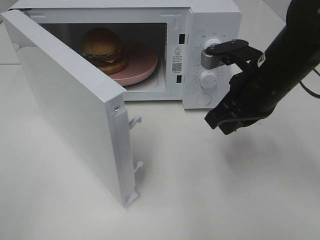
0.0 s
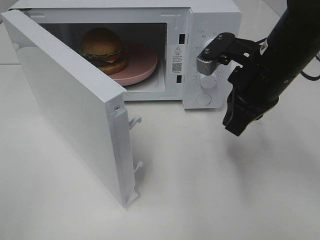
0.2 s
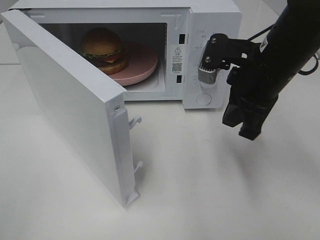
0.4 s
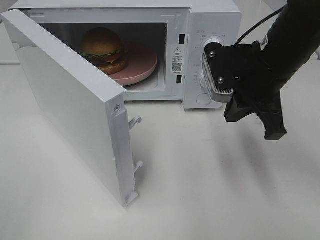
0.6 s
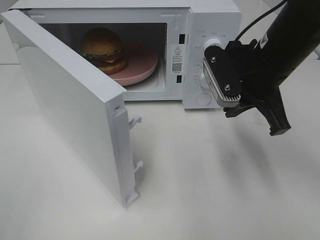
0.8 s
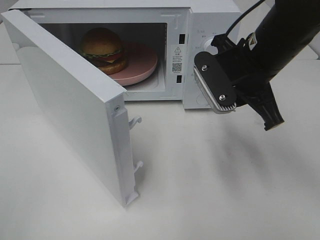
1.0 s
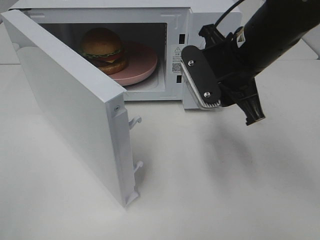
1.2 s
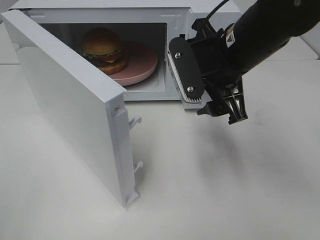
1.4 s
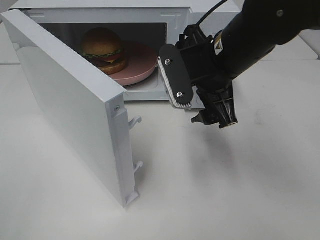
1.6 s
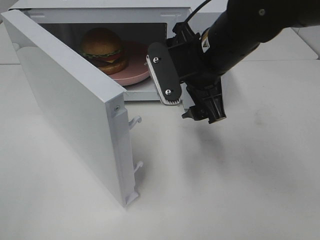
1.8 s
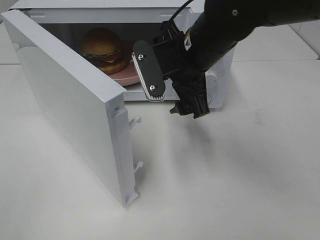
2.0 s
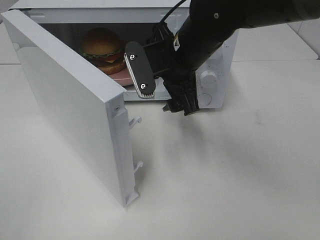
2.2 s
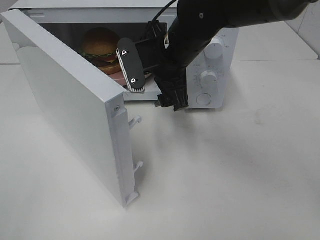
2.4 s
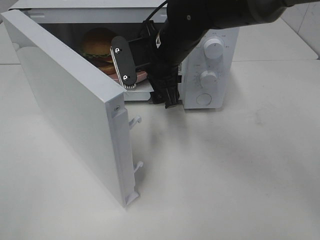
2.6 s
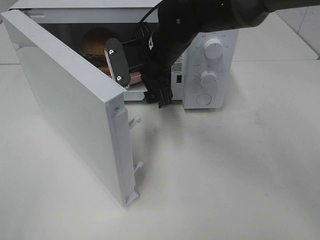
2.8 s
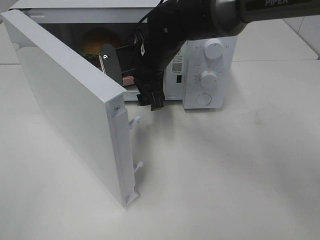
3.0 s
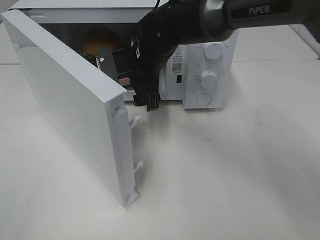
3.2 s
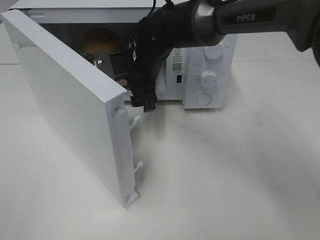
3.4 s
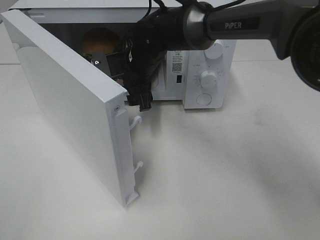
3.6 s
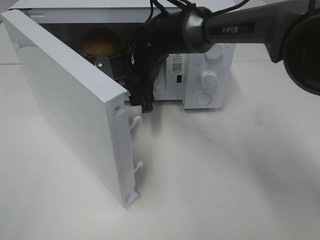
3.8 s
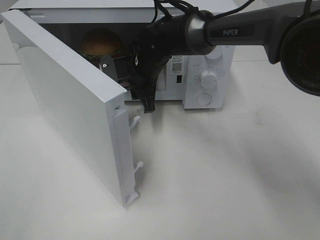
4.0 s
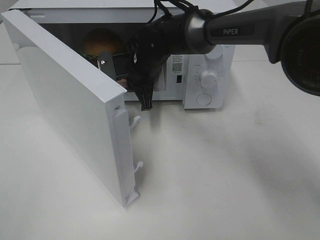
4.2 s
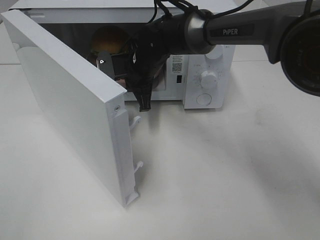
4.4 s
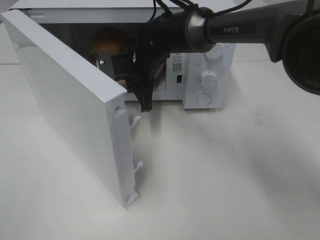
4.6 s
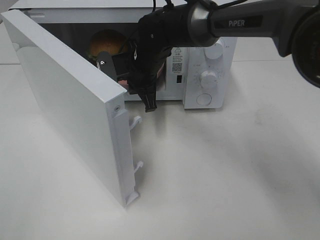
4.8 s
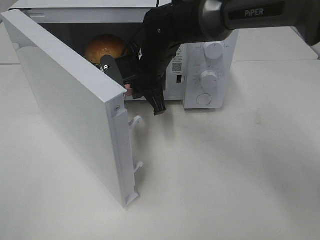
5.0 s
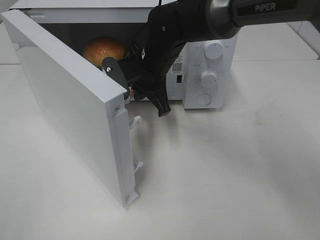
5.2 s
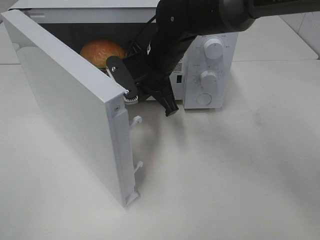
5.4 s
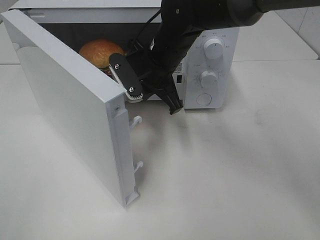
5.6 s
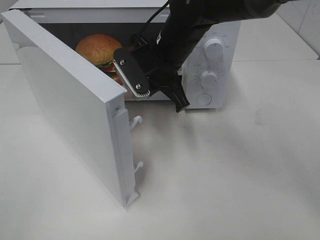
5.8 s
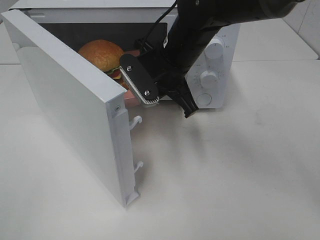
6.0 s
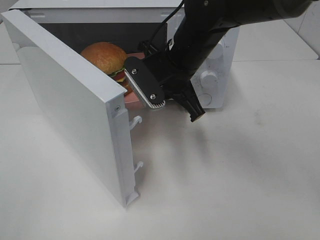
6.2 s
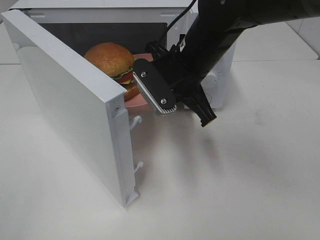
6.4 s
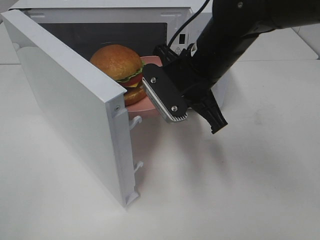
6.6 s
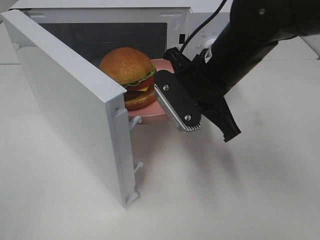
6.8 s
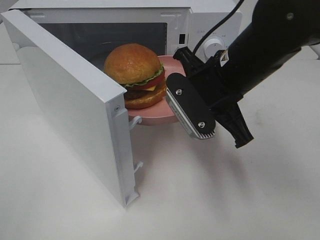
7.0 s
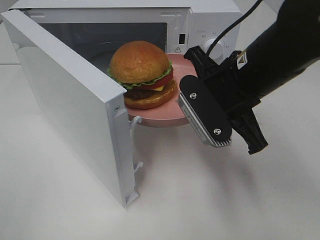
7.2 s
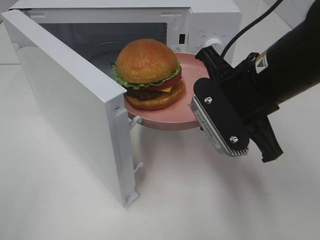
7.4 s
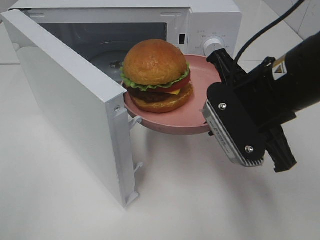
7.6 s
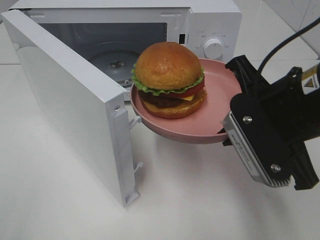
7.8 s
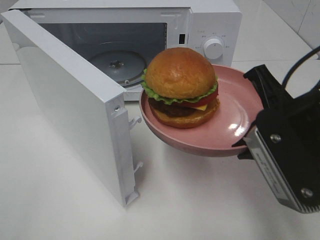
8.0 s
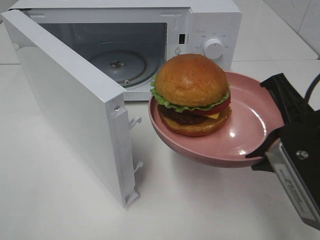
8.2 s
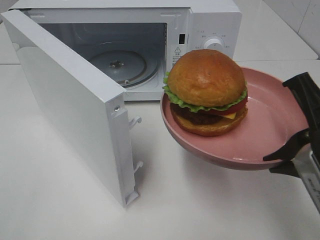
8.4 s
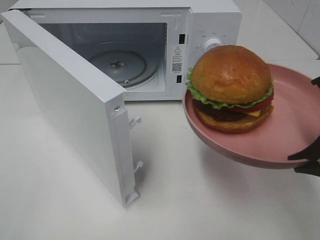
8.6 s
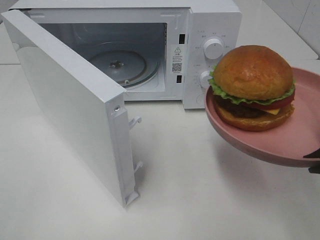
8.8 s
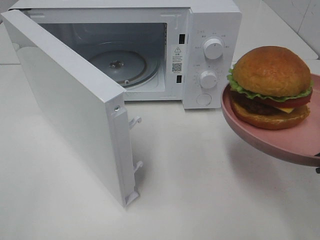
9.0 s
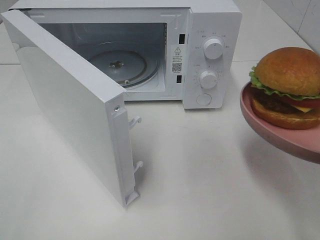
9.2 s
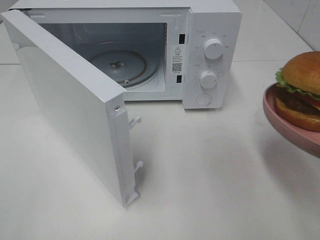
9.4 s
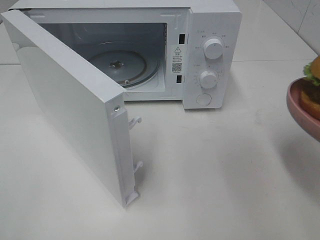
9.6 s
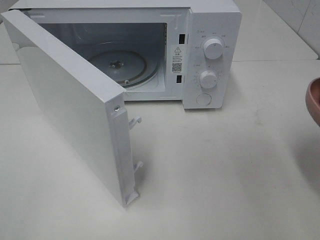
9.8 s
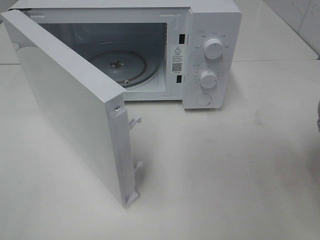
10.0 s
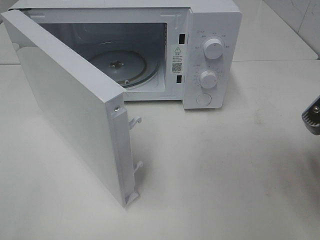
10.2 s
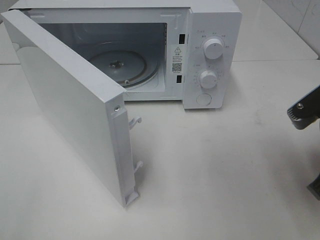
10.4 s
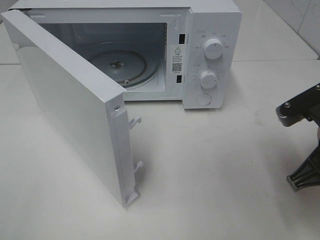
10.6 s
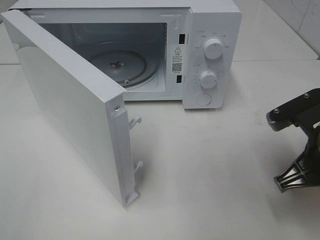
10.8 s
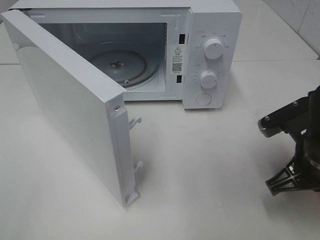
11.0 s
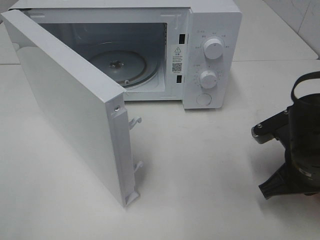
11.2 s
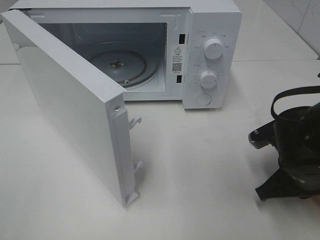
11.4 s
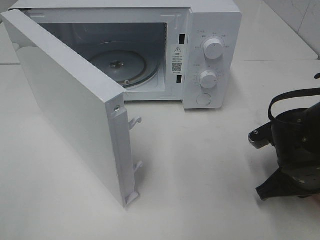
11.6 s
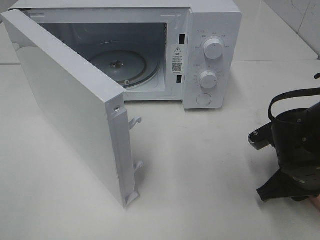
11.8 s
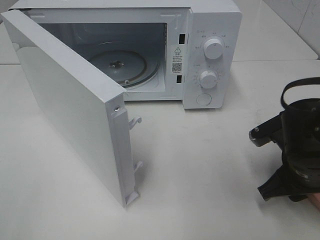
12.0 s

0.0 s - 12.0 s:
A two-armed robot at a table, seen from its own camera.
Task of the whole recording: Heat the burger.
Step, 0.0 s - 4.2 s: Right hand: grab the plate with the hamburger.
Step, 4.4 s - 11.8 s: Right hand: place the plate on the table.
0.0 s - 1.6 s: The right gripper shifts about 5 cm to the left, and opens up.
1.6 s - 3.0 s: The right gripper goes approximately 15 cm forward, to the left and downward.
3.0 s - 4.4 s: The right gripper moves about 5 cm, and closes.
4.4 s - 6.0 s: The right gripper heads backward, upward and to the right, covering roughly 10 cm.
6.0 s - 7.6 s: The right gripper moves backward and to the right, roughly 15 cm.
7.6 s - 9.0 s: The right gripper travels backward and to the right by roughly 15 cm.
9.0 s - 10.4 s: The right gripper shifts by approximately 5 cm.
10.4 s - 12.0 s: The right gripper is displaced downward by some 10 cm, and opens its fingers.

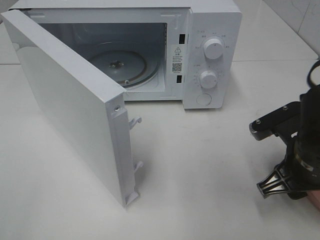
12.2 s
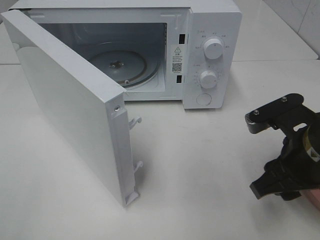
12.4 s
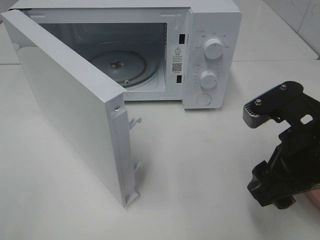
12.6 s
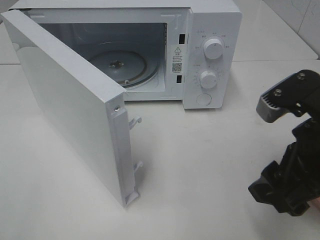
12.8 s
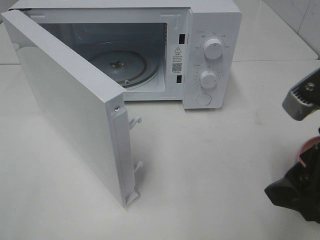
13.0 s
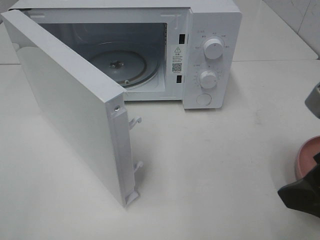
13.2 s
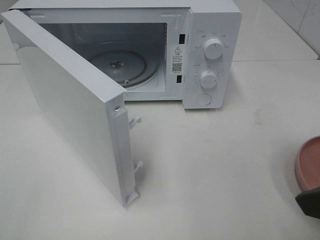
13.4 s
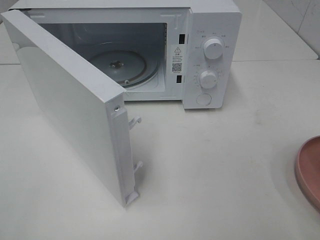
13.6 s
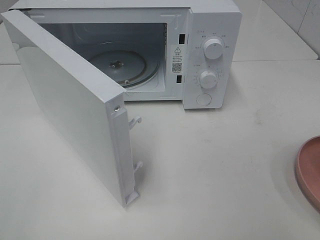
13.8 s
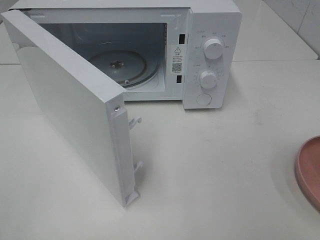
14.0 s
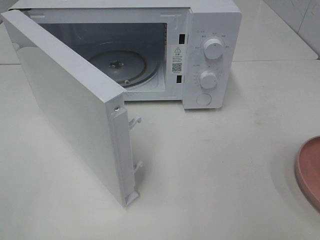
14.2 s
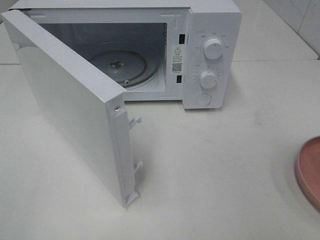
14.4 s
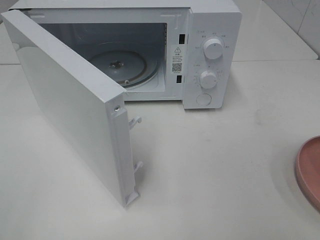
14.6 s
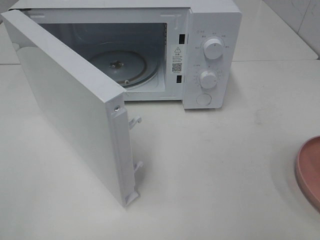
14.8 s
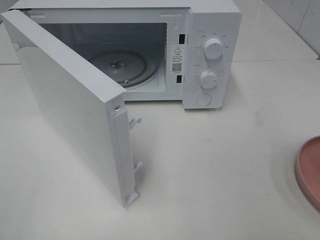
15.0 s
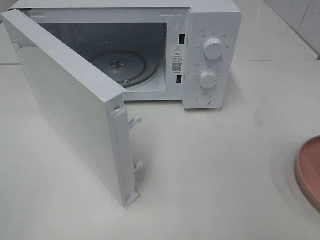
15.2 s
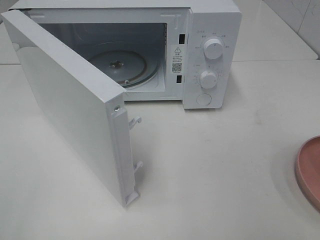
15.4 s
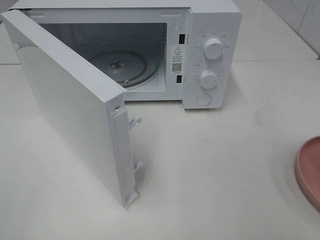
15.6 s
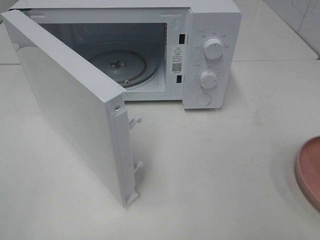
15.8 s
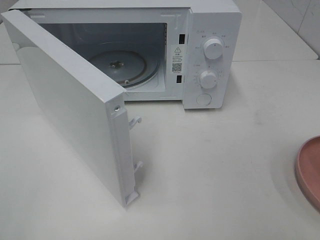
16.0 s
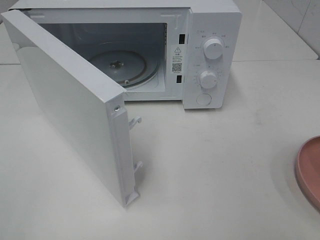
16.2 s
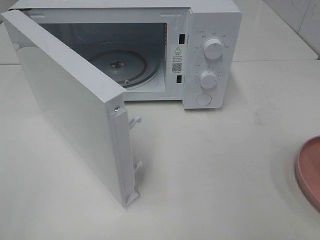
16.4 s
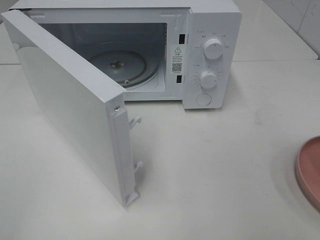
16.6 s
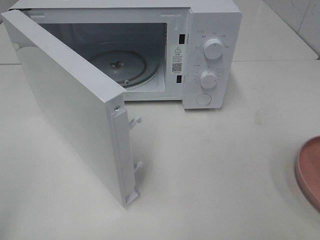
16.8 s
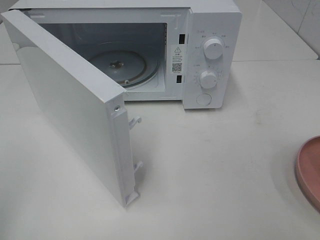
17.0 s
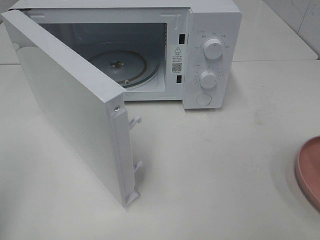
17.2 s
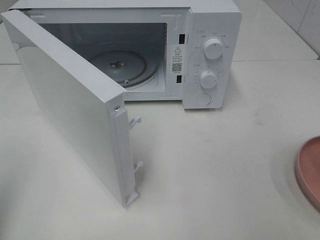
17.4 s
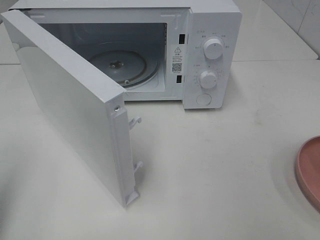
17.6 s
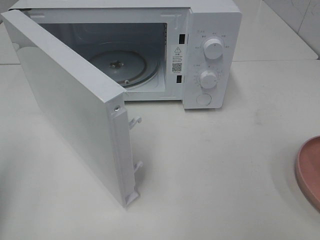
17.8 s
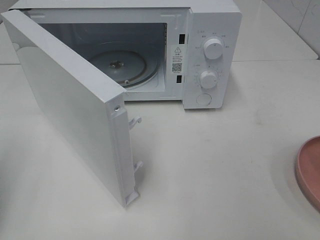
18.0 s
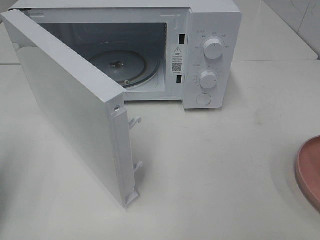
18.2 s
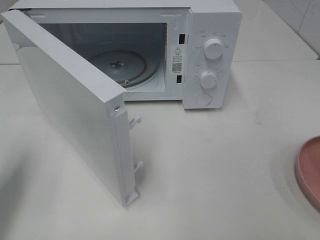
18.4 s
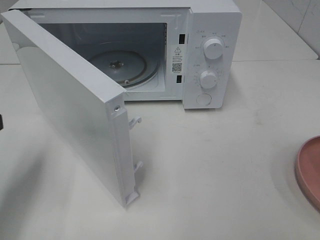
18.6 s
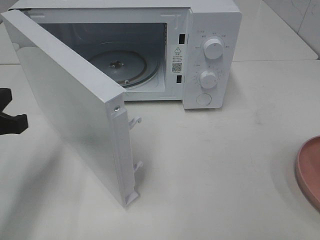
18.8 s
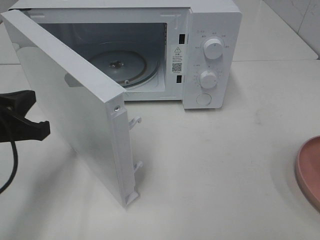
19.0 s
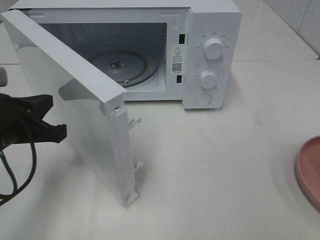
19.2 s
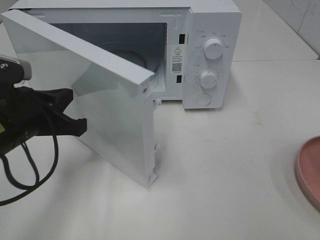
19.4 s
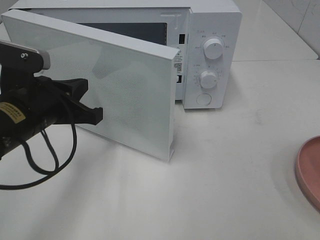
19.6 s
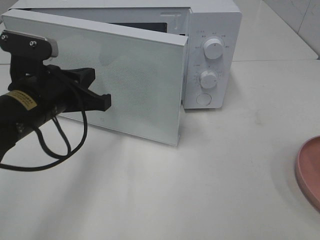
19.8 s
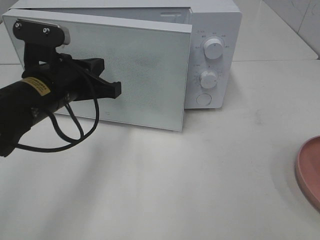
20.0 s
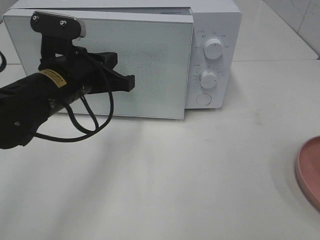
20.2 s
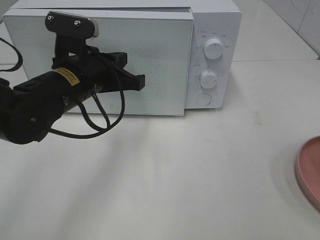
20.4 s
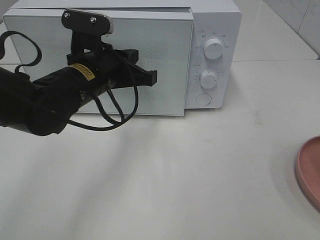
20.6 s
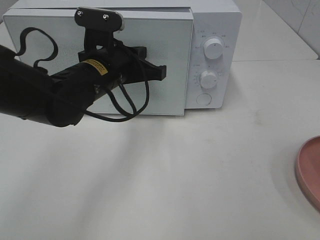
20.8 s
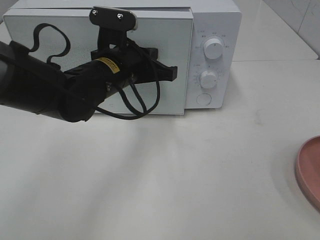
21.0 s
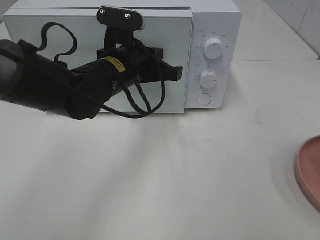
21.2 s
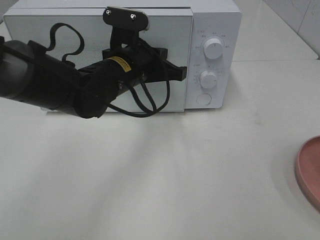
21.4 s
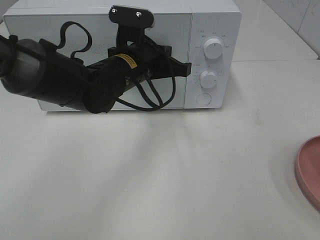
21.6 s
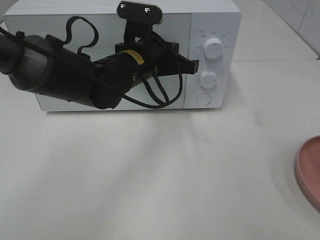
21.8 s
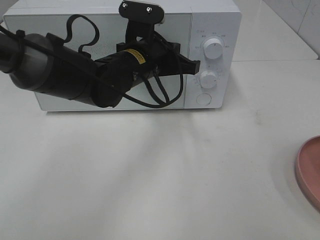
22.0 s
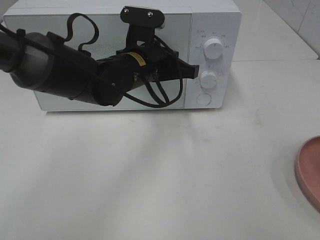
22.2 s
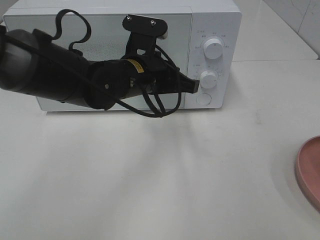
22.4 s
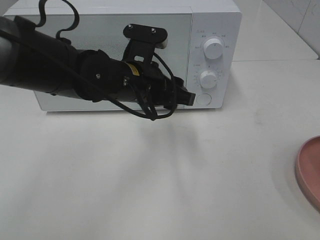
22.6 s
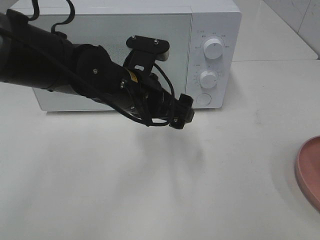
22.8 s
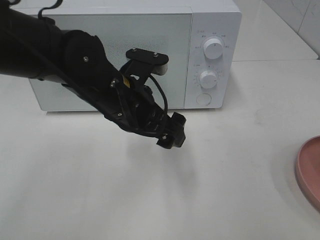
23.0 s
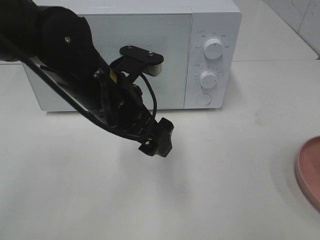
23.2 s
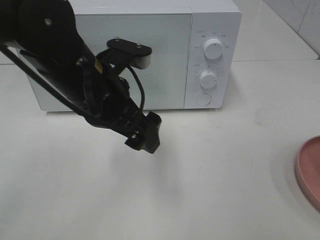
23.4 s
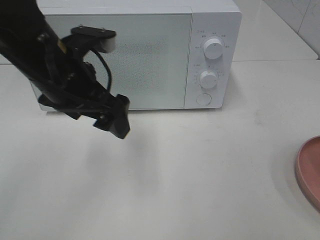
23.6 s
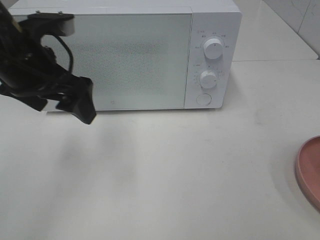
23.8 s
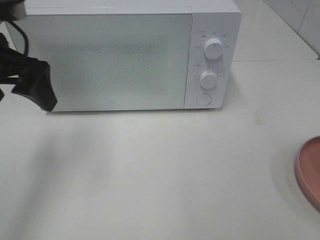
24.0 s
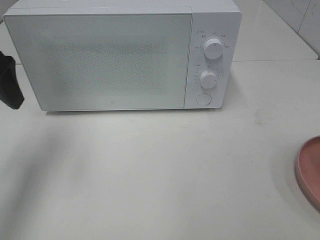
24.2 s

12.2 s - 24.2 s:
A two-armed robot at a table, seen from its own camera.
Task of the whole recording: Heat the burger.
Step, 12.2 s - 22.2 s: Left hand: close the microwave door.
12.2 s - 13.8 s: The right gripper is displaced upward, backward and to the right by roughly 20 cm.
15.2 s - 16.6 s: Both grippers stay put.
16.6 s - 18.2 s: The left gripper heads forward and downward, covering roughly 15 cm, and closes up.
18.2 s - 19.8 s: The left gripper shifts roughly 20 cm to the right and forward.
19.8 s - 21.2 s: The left gripper is displaced to the right and forward by some 15 cm.
21.2 s - 22.6 s: The left gripper opens.
22.6 s - 24.2 s: The left gripper is displaced to the left and upward by approximately 25 cm.
